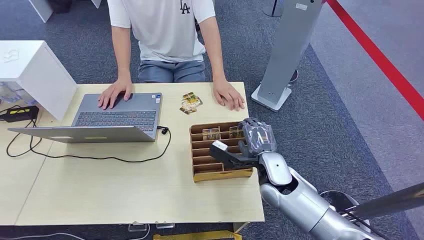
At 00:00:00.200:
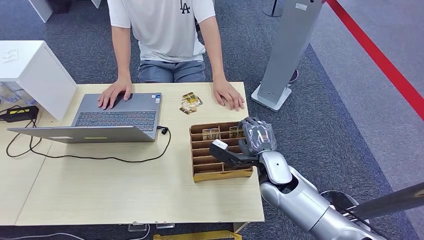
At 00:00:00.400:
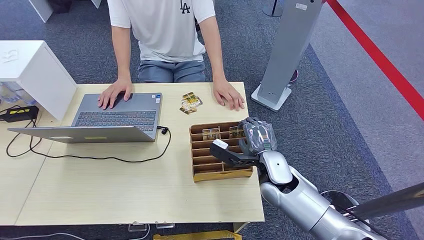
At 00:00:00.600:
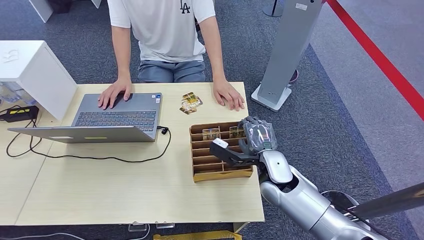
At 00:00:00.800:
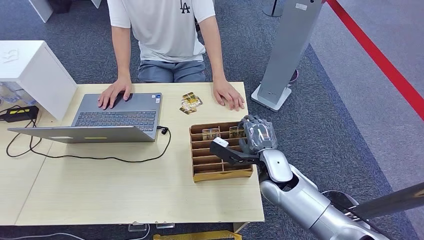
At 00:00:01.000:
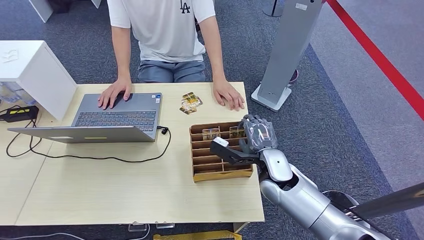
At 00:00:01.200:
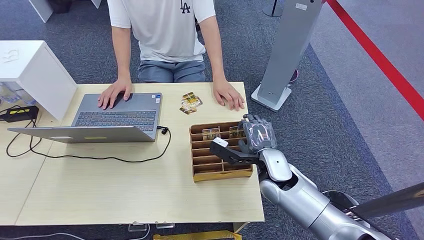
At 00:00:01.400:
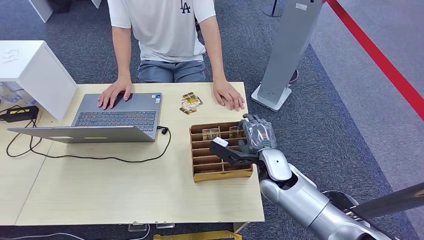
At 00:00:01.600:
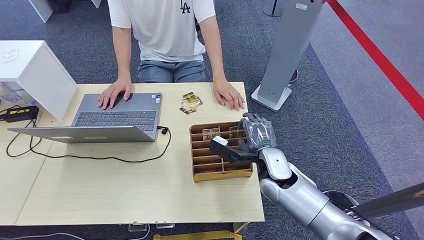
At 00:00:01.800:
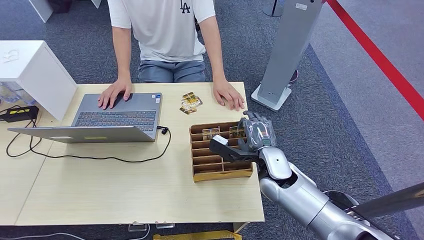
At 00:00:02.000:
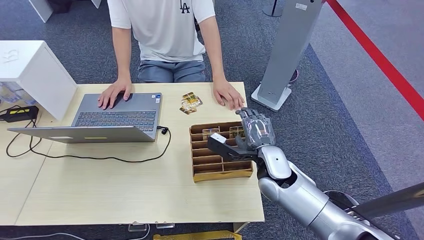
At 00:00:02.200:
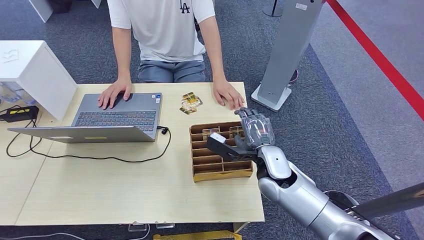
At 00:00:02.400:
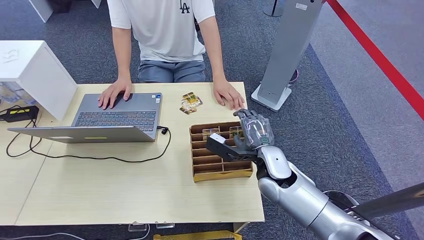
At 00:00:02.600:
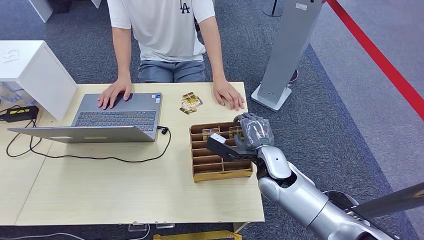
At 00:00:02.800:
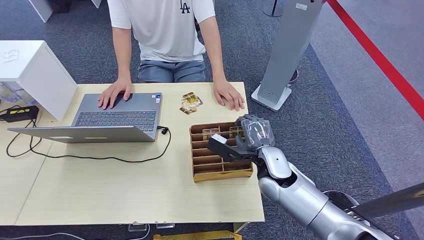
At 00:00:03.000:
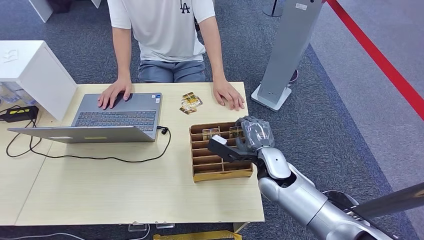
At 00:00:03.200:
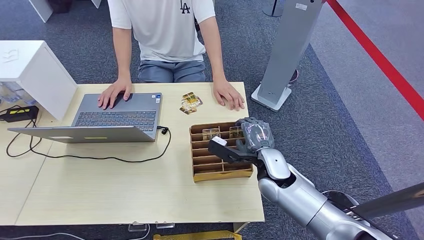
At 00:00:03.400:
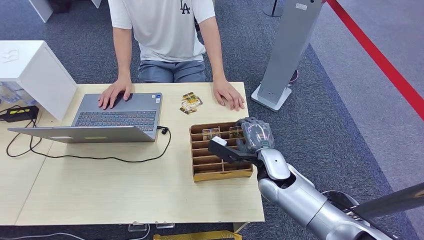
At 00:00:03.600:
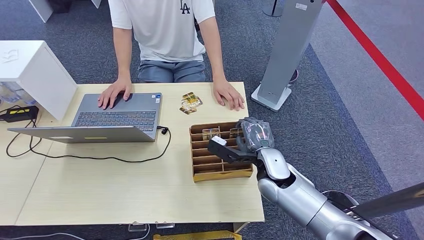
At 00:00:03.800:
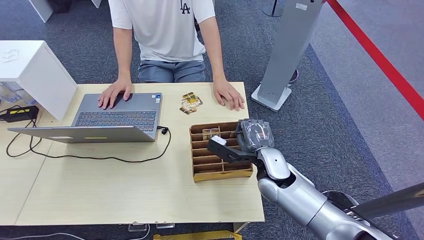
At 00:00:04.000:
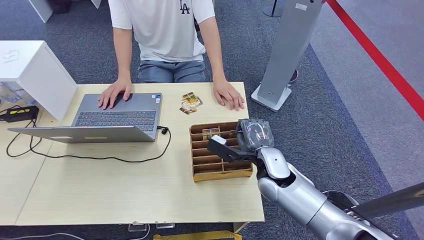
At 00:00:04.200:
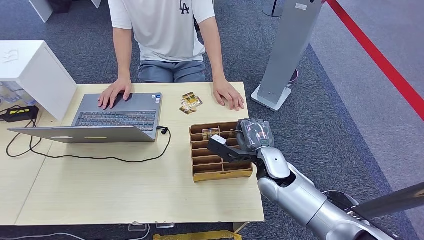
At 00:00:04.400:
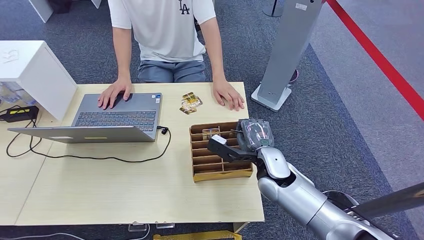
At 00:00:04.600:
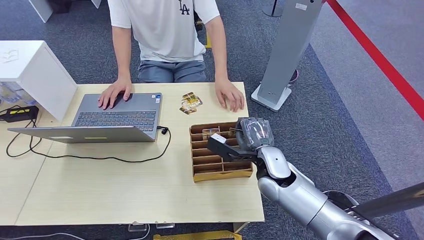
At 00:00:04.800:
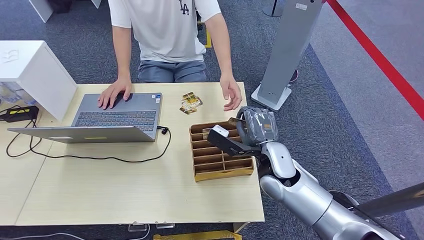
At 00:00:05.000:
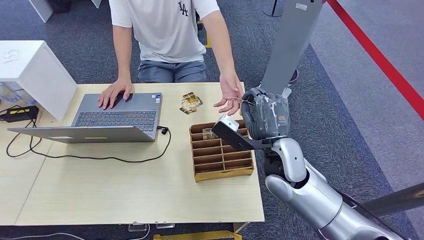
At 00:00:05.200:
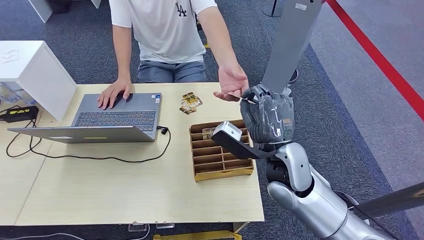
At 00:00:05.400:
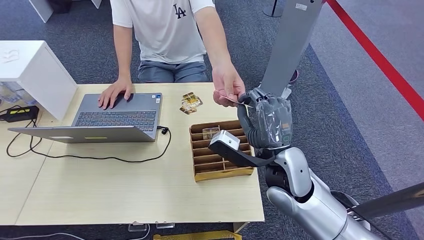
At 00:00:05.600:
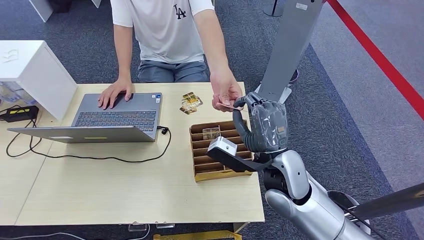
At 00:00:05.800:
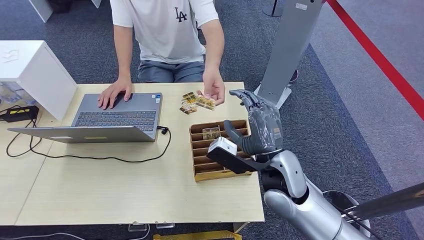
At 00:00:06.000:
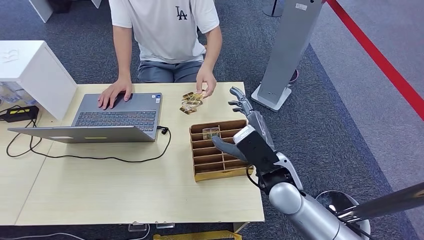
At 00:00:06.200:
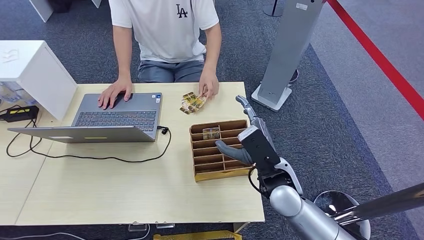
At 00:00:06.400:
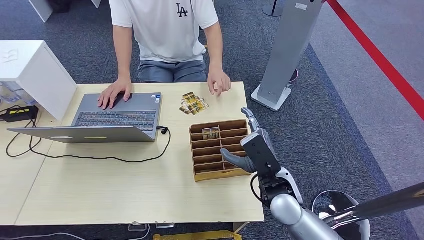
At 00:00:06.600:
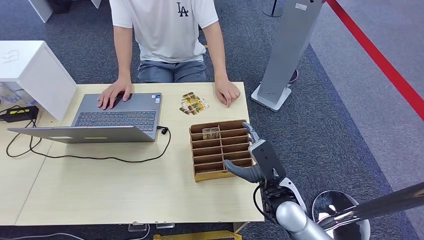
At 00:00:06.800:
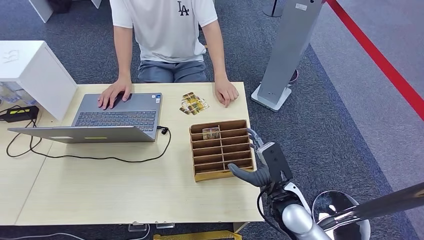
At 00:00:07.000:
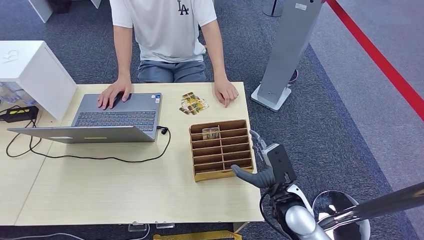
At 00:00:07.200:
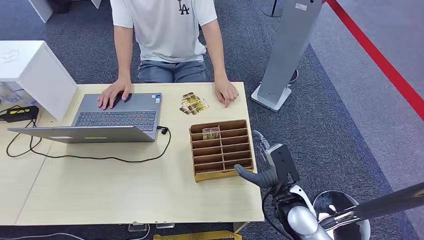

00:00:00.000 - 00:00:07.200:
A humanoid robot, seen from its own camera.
Step, 00:00:00.000 - 00:00:04.000: Pick up the room card from the card holder.
Step, 00:00:04.200 - 00:00:07.000: Hand the room card to the target.
00:00:01.400 - 00:00:02.800: The hands stay close to where they were, moving slightly.
00:00:02.800 - 00:00:04.400: Both hands stay about where they are.
00:00:04.400 - 00:00:05.800: The right hand heads upward and backward, covering roughly 10 cm.
00:00:05.800 - 00:00:07.200: The right hand travels downward and to the right by about 10 cm.

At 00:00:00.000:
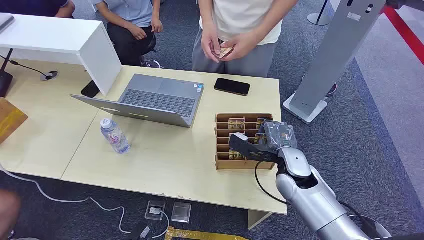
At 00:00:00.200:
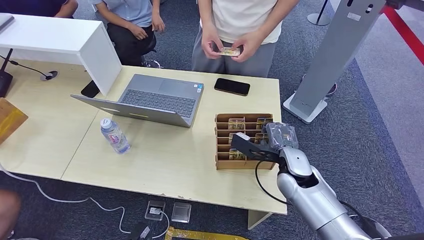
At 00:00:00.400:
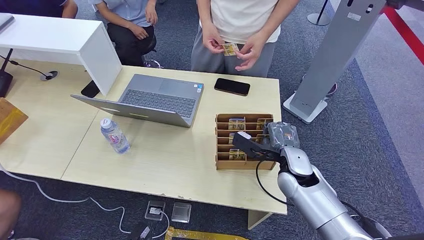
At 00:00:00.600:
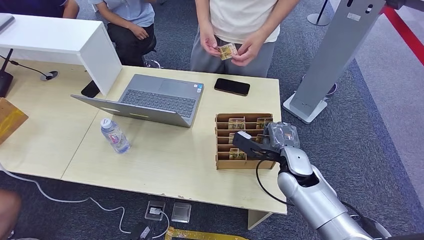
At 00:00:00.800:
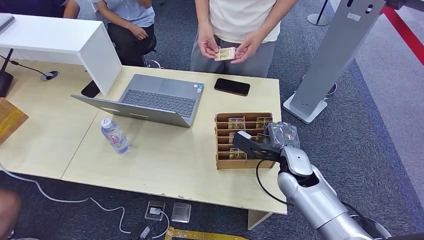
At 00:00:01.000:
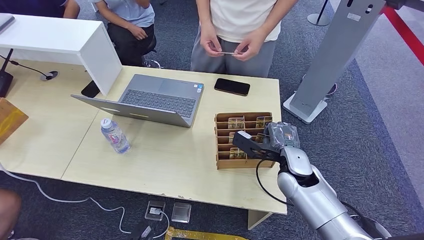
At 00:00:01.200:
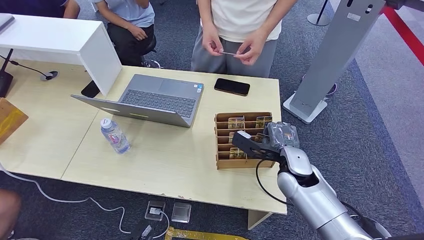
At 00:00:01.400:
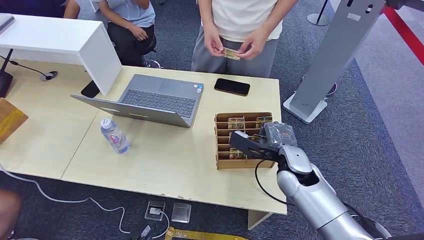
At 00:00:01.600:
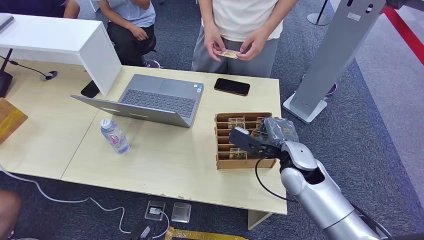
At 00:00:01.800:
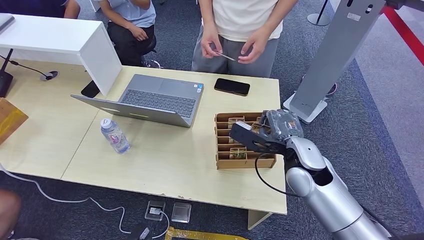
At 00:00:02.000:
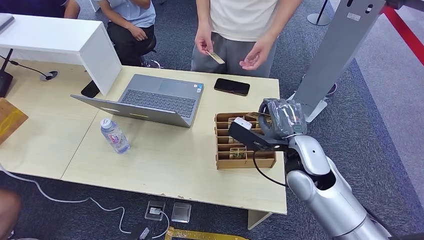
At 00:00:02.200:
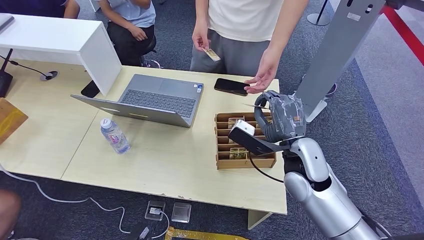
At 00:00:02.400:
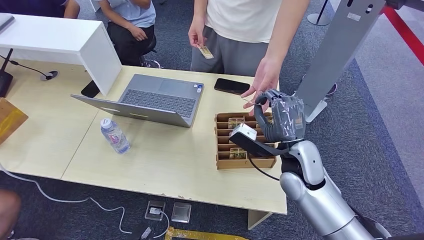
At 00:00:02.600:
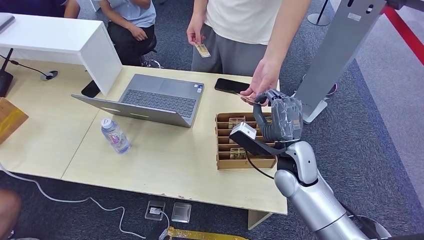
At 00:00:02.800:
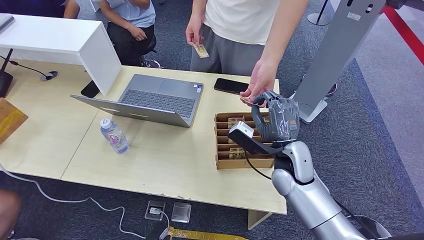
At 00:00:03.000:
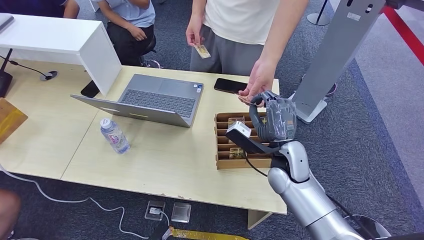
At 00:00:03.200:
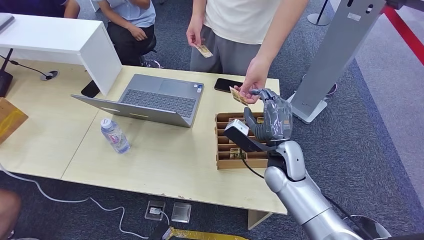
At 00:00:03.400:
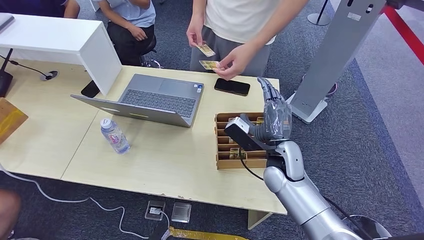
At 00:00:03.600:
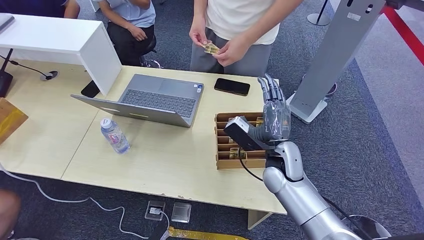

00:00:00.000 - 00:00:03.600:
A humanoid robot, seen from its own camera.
Step, 00:00:00.000 - 00:00:01.600: Pick up the room card from the card holder.
Step, 00:00:02.200 - 00:00:03.600: Hand the room card to the target.
00:00:01.800 - 00:00:03.600: The left hand is displaced to the right by approximately 5 cm.
